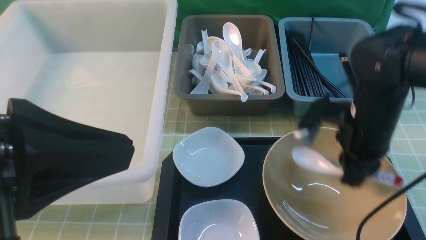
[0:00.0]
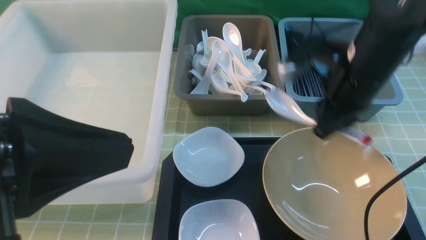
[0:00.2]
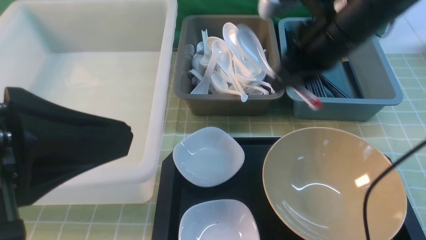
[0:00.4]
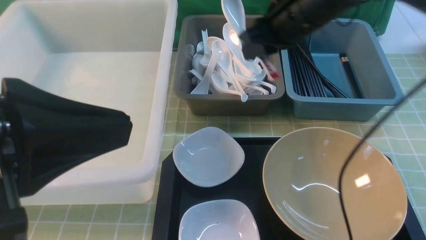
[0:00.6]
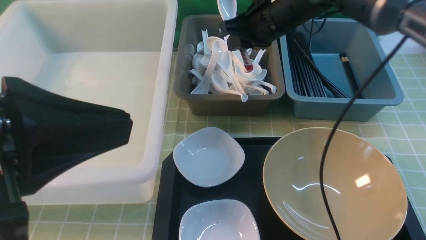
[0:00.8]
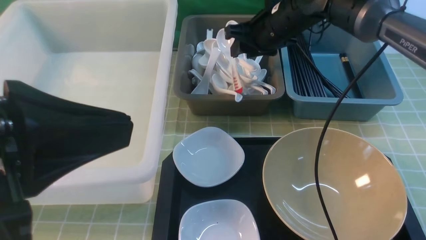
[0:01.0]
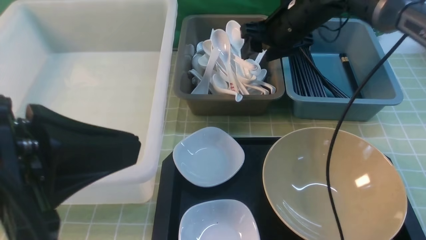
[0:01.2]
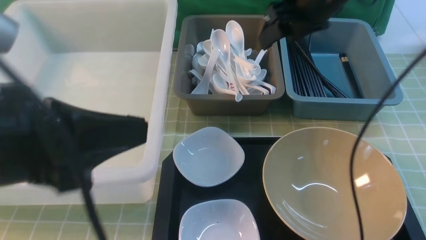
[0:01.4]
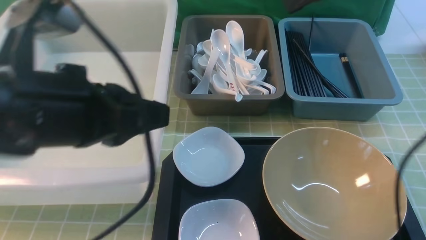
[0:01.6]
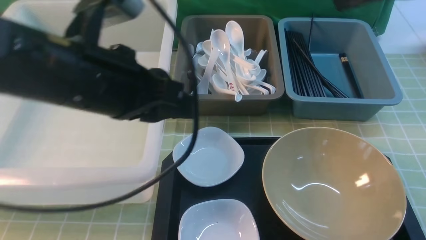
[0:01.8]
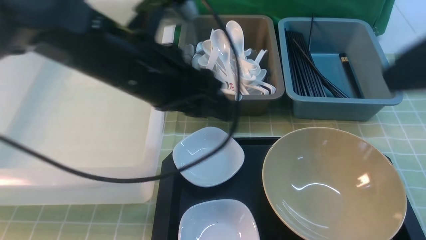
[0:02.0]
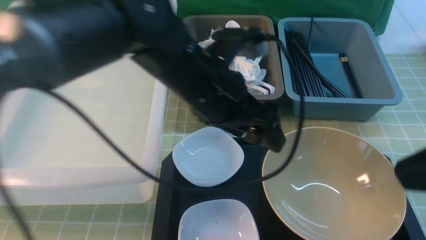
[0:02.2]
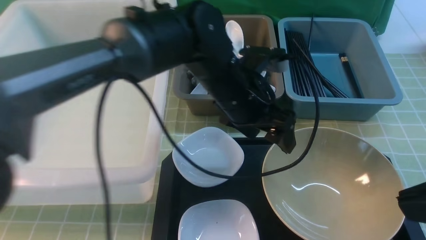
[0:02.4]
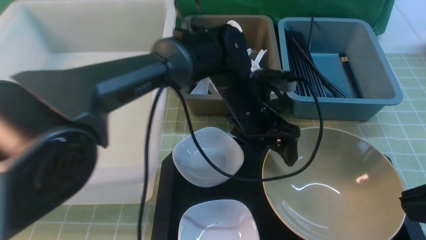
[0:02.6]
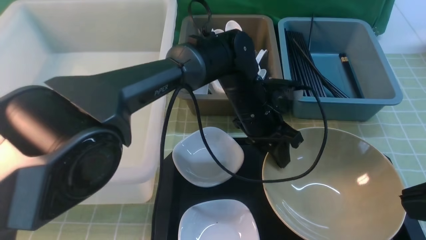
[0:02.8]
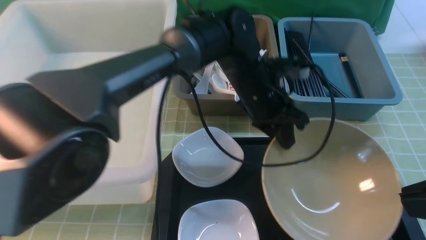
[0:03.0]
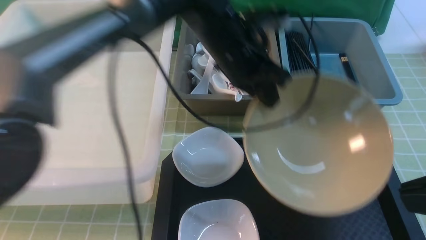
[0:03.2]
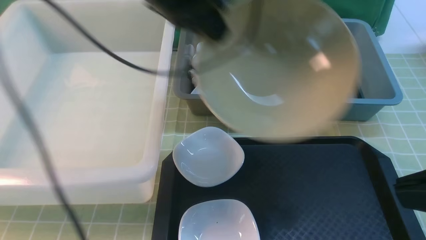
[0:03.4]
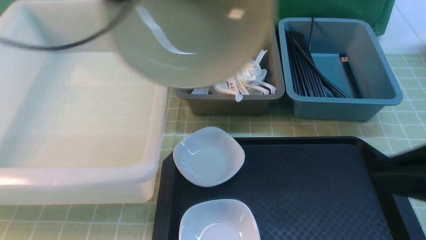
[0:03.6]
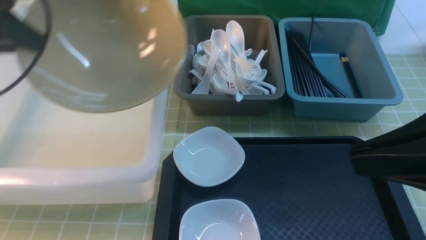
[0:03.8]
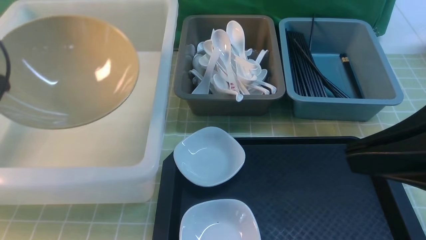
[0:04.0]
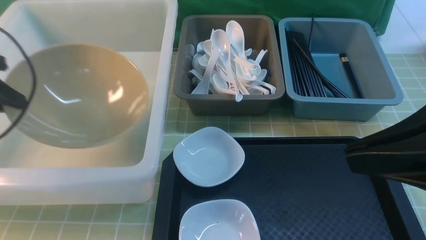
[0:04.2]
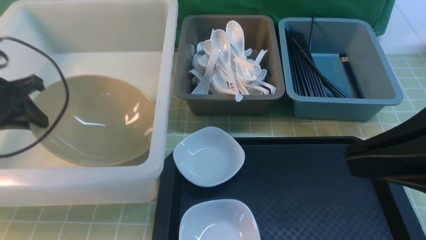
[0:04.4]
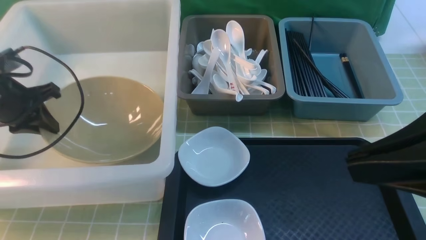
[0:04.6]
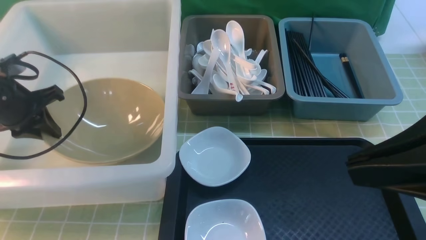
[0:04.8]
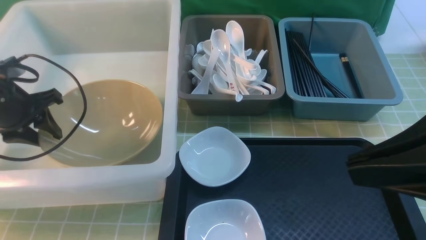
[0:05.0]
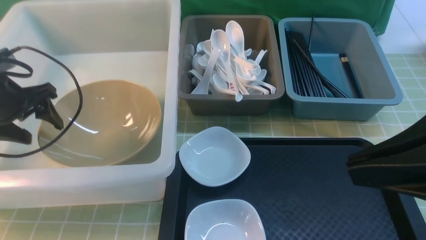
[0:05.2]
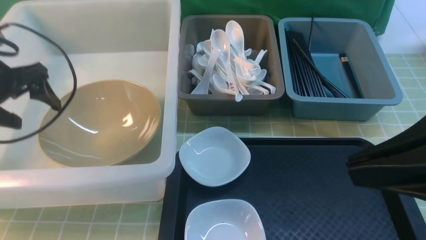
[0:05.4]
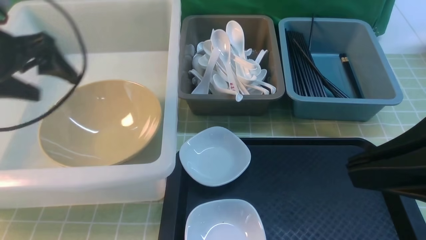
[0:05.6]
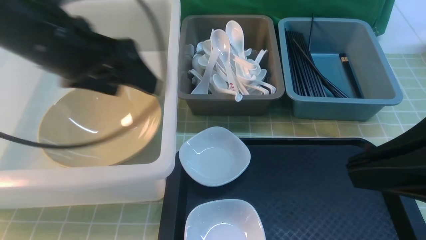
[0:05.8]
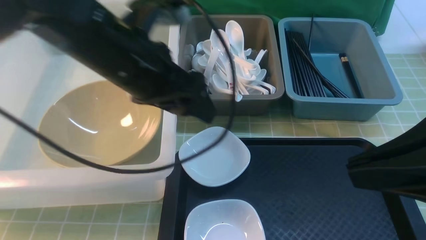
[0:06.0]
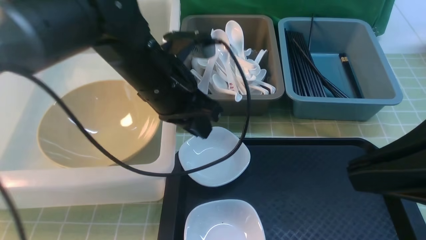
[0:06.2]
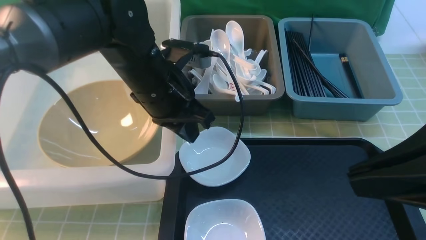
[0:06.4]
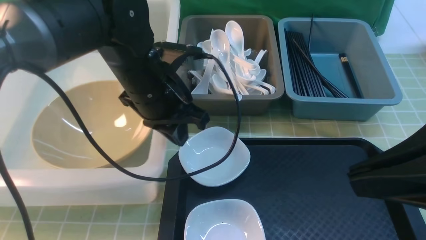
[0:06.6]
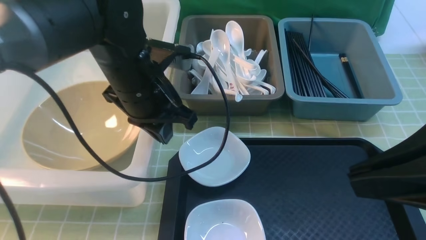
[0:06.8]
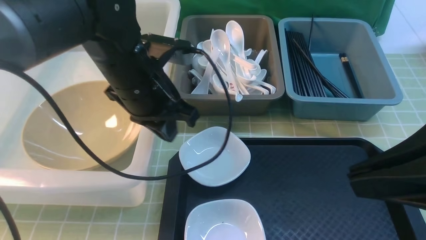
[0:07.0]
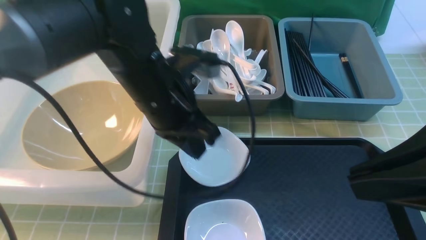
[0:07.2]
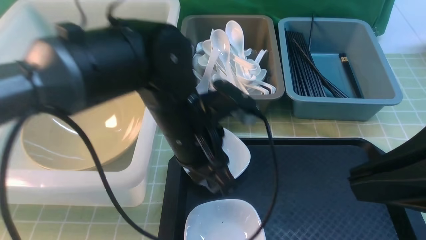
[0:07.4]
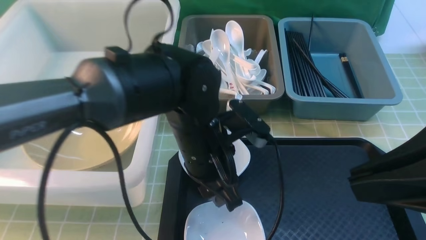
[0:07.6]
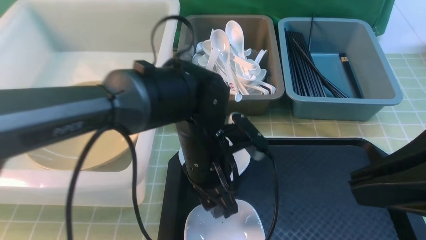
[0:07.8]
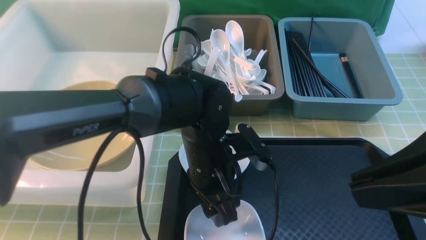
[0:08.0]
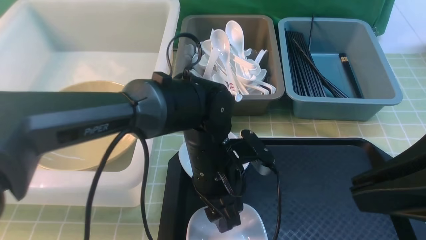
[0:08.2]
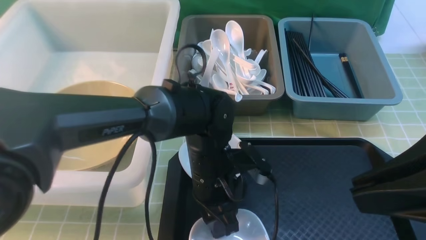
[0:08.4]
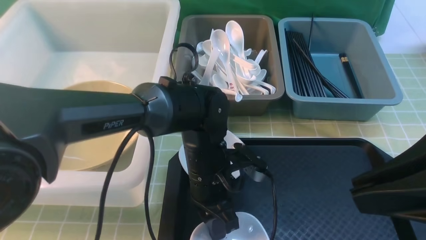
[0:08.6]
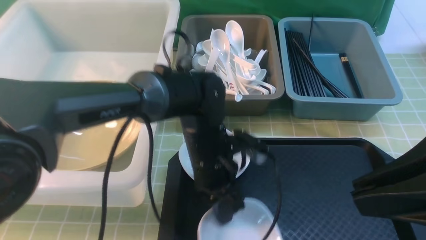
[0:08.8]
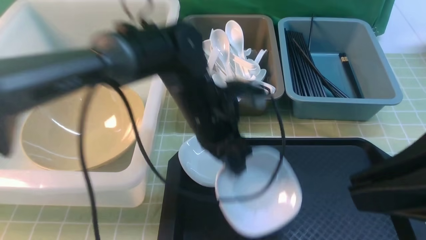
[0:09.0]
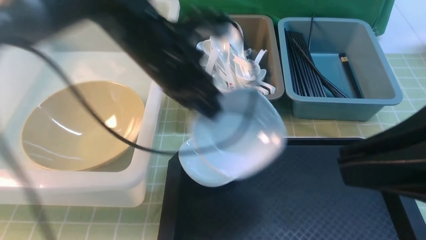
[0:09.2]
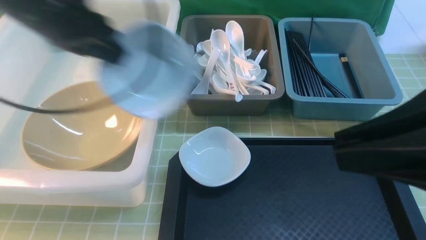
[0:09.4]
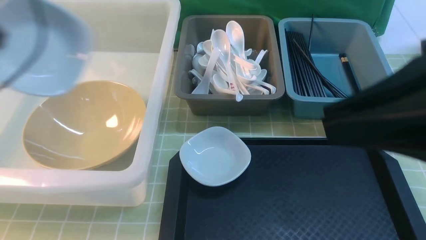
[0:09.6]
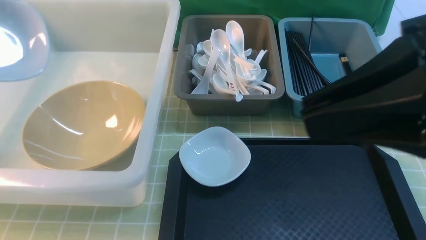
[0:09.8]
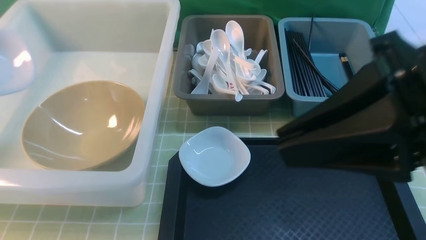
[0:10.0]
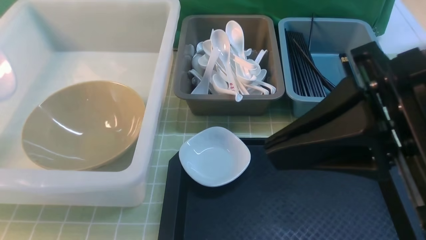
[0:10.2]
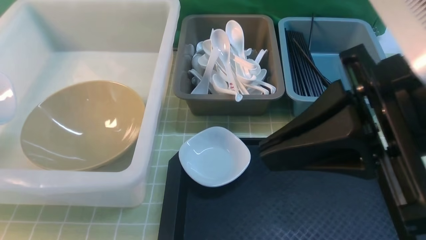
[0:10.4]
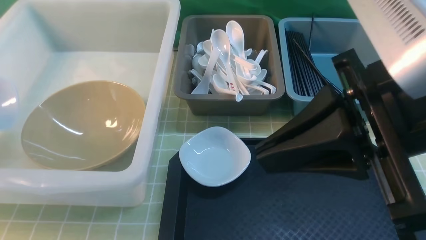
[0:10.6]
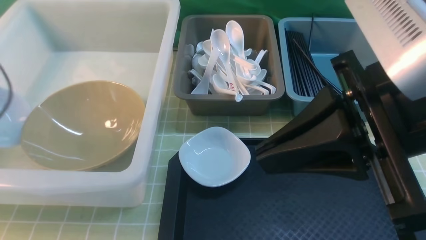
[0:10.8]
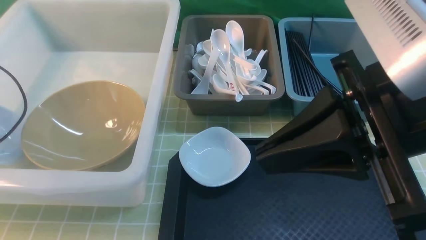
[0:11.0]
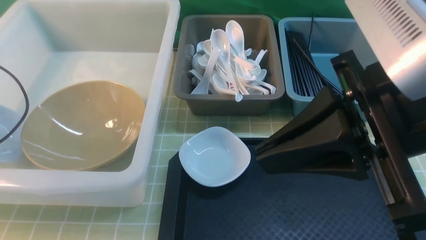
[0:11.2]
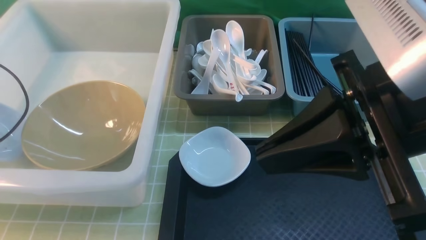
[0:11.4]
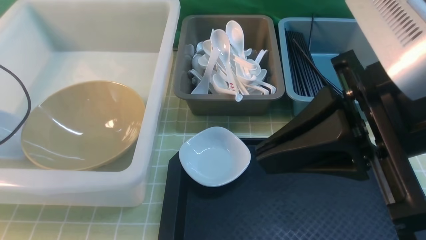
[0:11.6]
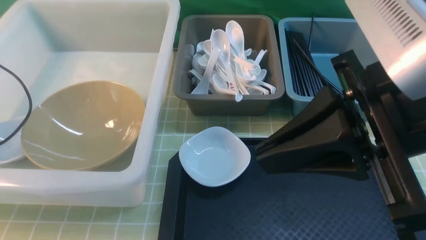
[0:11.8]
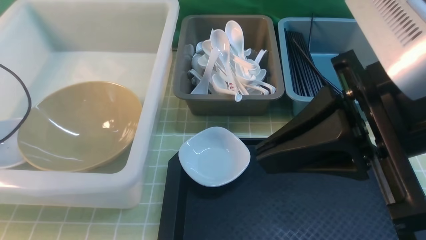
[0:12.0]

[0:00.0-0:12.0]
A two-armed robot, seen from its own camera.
Task of the whole recording: on green table put chopsticks spoon bowls plates into blue grey white boxes.
Step, 0.4 to 1.6 s: use the right arm to put the soup spoon into the small storage box in the middle.
Step, 1.8 to 3.0 s: use the left arm to grab the yellow noodle bowl on the left.
Step, 3.2 to 5.4 s: use the left arm to put the noodle bowl into the large storage box on the left.
Step, 5.6 to 8.8 s: use the left arm to grab the plate.
0.0 to 1.6 s: The right gripper swings up and down, some 20 cm each way, with 2 reversals, and opens. Meanwhile the left gripper shifts some 10 cm forward.
1.6 to 3.0 s: The left gripper is displaced forward, to the right and downward by some 30 cm, and opens and closes again. Meanwhile the right gripper moves backward, some 20 cm, and closes up.
3.0 to 4.4 s: The left gripper is displaced to the left by about 40 cm.
4.4 to 6.0 s: The left gripper is displaced to the right by about 25 cm, and opens.
6.0 to 7.6 s: The left gripper travels downward and to the right by about 15 cm, and closes, then reopens.
7.6 to 9.0 s: The left gripper is displaced forward by about 5 cm, goes downward and returns, about 5 cm each way, and closes up.
9.0 to 10.4 s: The left gripper heads to the left, covering some 40 cm, while the right gripper is displaced to the left by approximately 5 cm.
10.4 to 12.0 s: The left gripper moves about 5 cm, and opens its fingers.

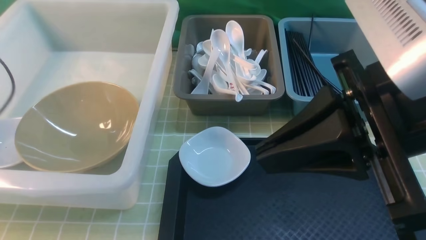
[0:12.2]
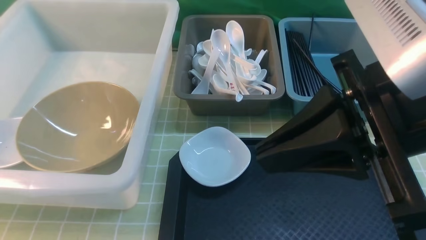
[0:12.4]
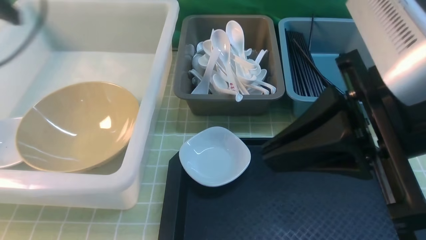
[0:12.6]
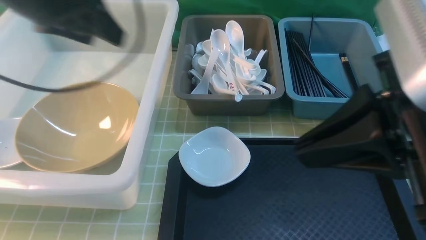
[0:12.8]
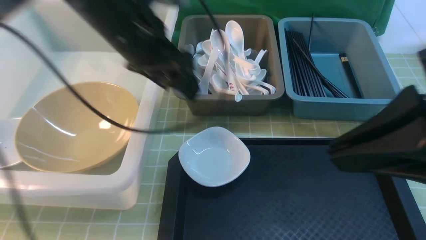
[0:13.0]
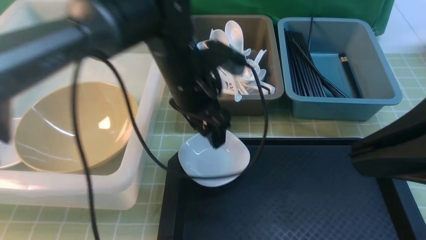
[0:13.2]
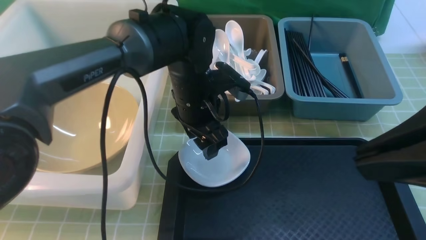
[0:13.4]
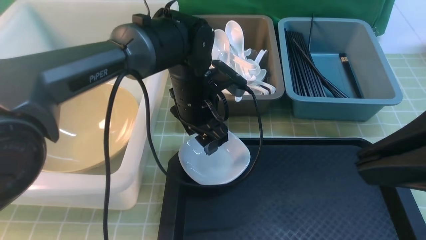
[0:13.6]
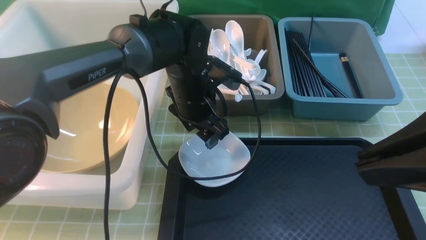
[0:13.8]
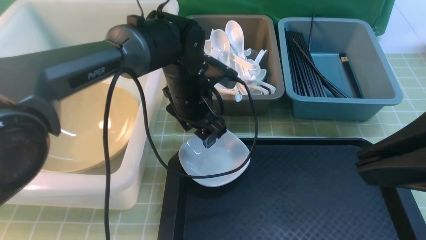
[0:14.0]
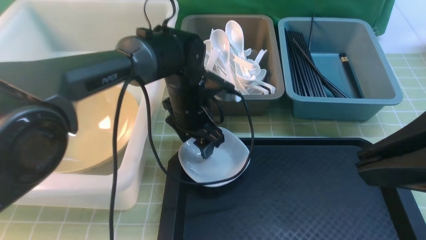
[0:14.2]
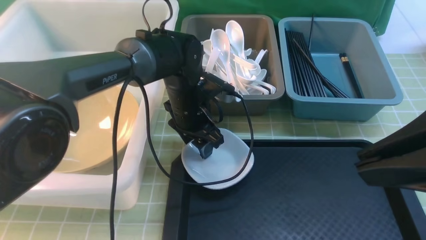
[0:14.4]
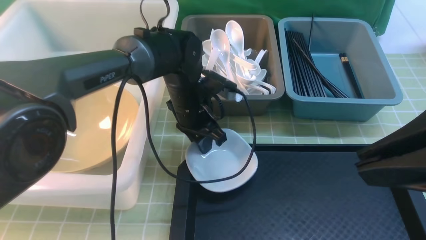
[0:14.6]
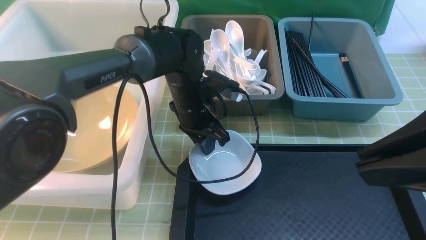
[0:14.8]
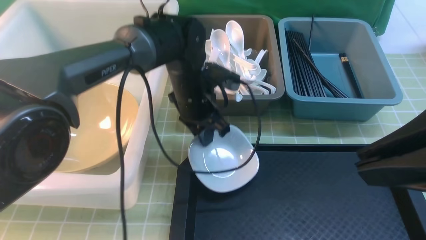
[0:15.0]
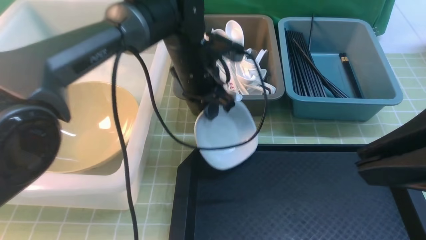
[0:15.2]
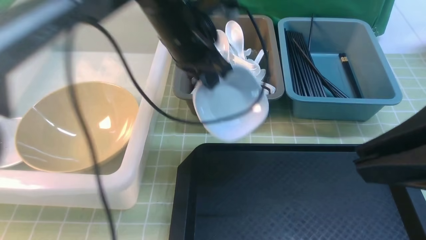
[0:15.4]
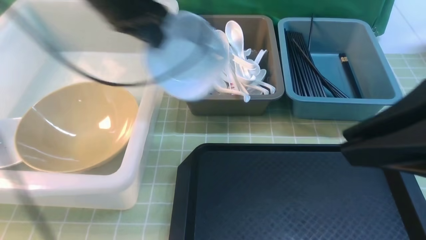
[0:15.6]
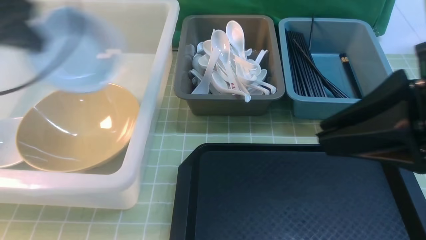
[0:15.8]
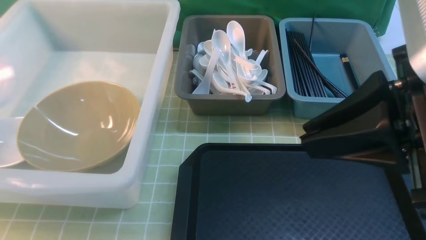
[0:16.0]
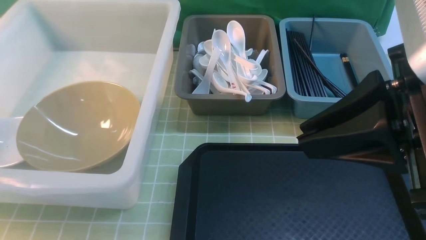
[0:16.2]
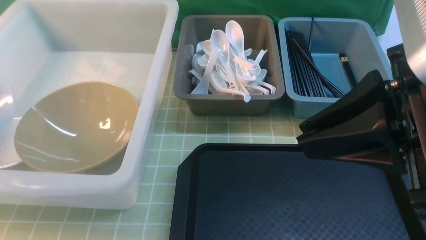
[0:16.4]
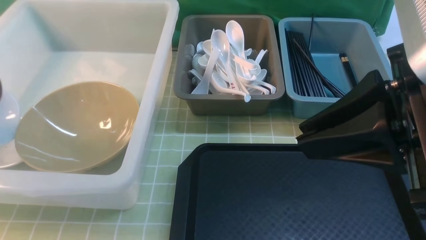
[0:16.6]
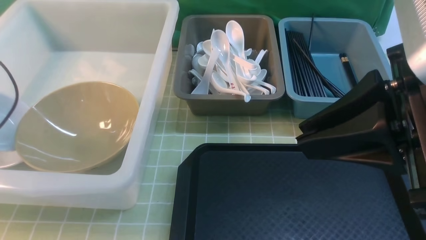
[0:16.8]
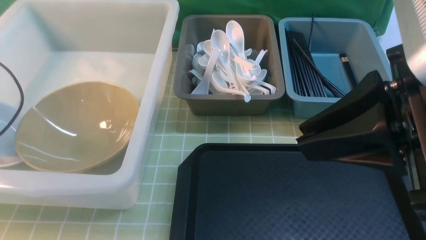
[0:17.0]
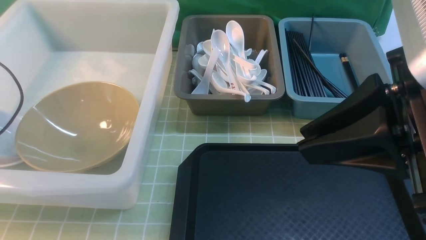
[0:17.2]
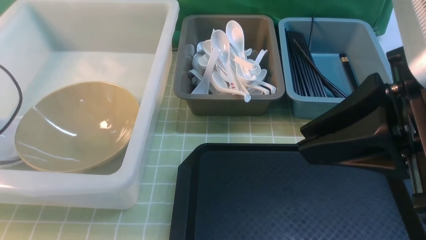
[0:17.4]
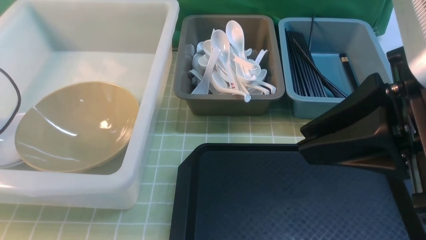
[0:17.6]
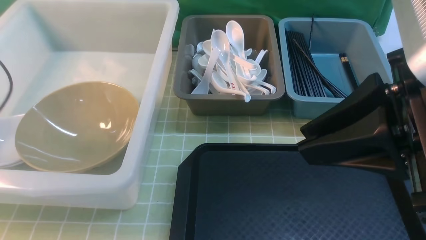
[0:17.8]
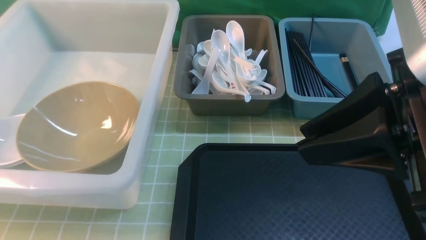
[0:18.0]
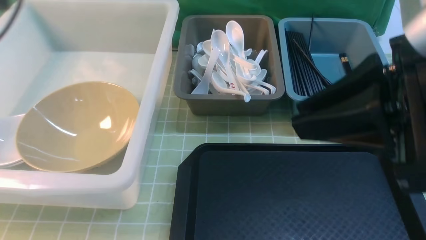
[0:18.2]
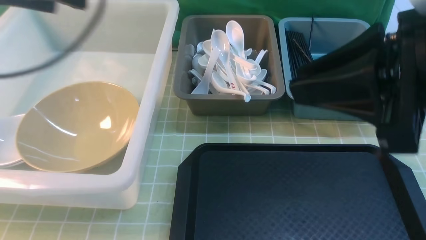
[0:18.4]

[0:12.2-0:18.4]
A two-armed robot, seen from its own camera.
Task of the whole recording: on green table put chopsticks spoon bowls plates into blue grey white boxes.
Step, 12.6 to 15.0 s: use the left arm to grab the plate.
Step, 15.2 to 18.4 s: use the left arm to put the plate into the large storage box on the left.
12.2 to 13.8 s: The right gripper is displaced to the right by about 5 cm; the left gripper moves to the right, some 40 cm.
13.8 to 15.4 s: The left gripper shifts some 15 cm upward and to the left, and closes its fingers.
15.4 to 16.8 s: The left gripper travels to the left by about 35 cm.
16.8 to 18.4 s: The left gripper shifts about 25 cm to the right and upward, and opens up.
